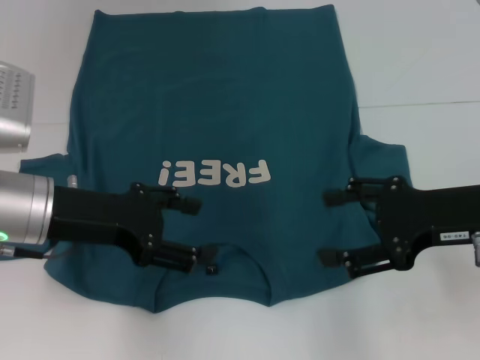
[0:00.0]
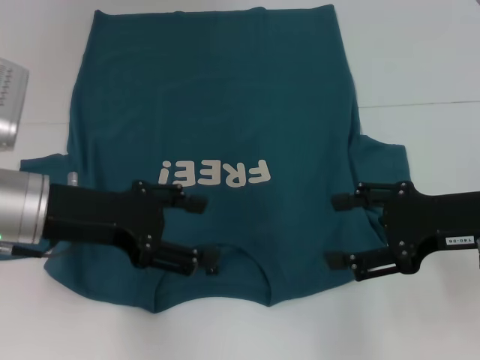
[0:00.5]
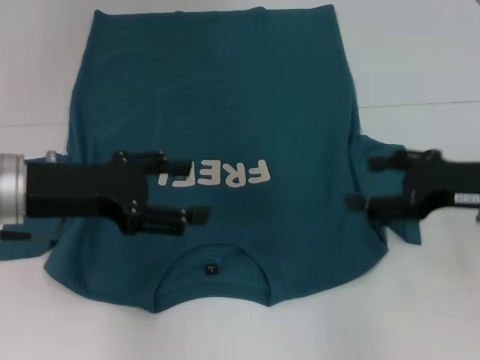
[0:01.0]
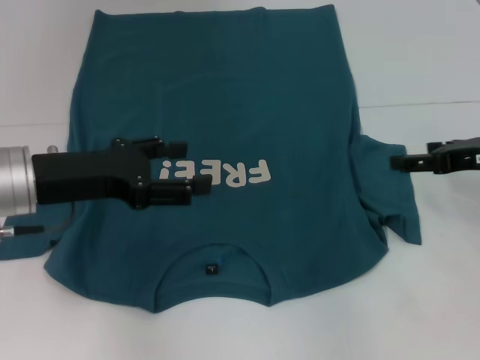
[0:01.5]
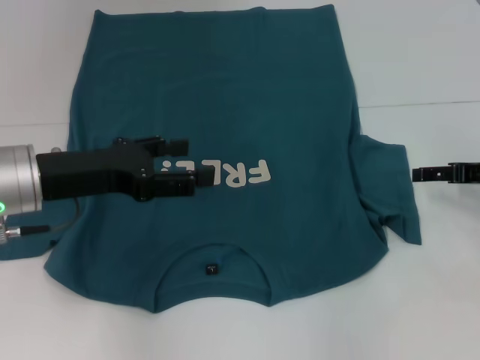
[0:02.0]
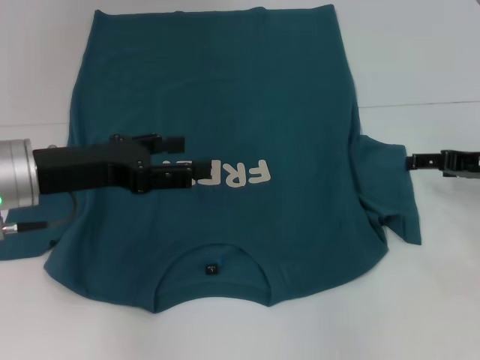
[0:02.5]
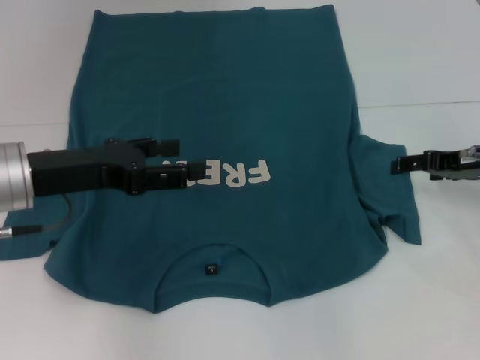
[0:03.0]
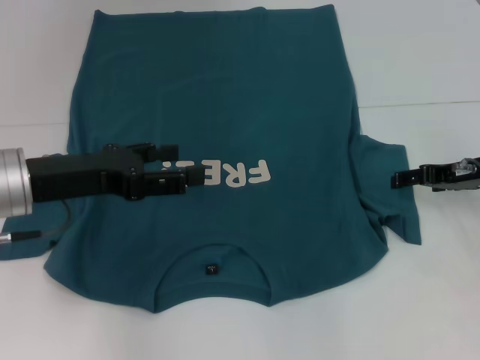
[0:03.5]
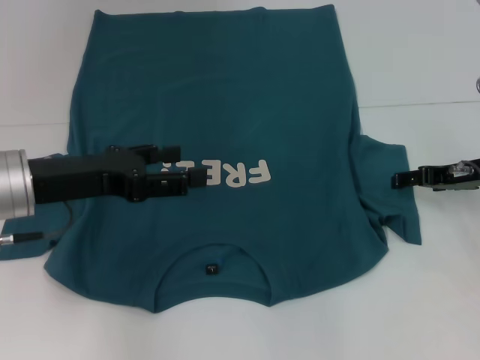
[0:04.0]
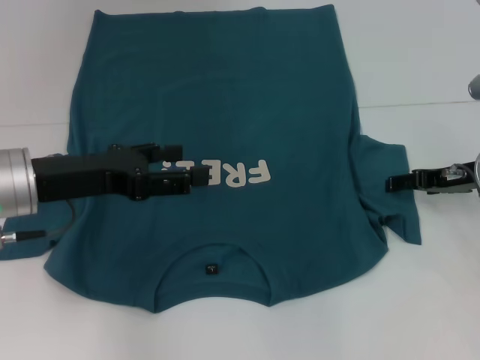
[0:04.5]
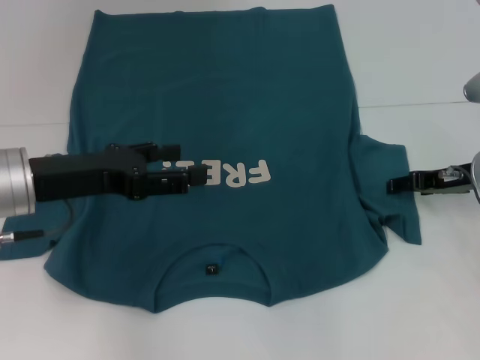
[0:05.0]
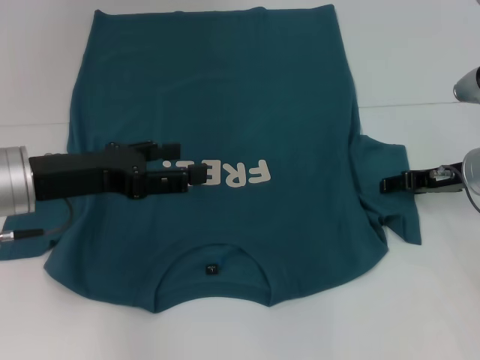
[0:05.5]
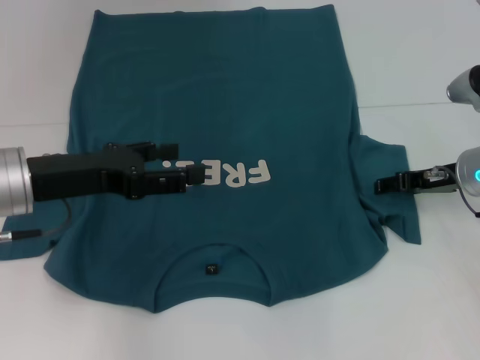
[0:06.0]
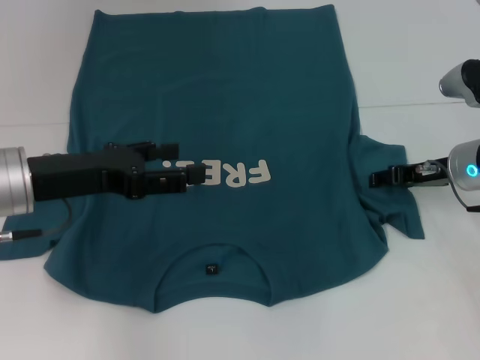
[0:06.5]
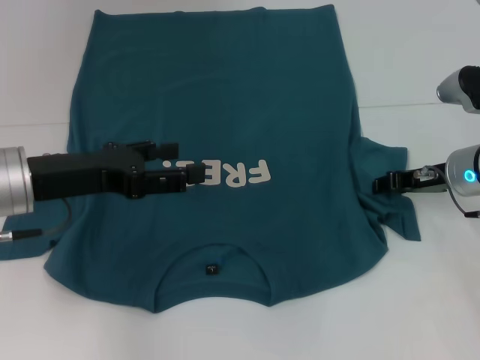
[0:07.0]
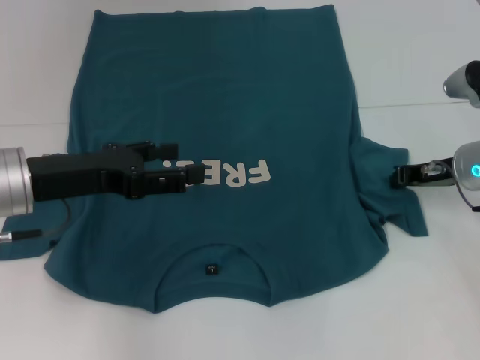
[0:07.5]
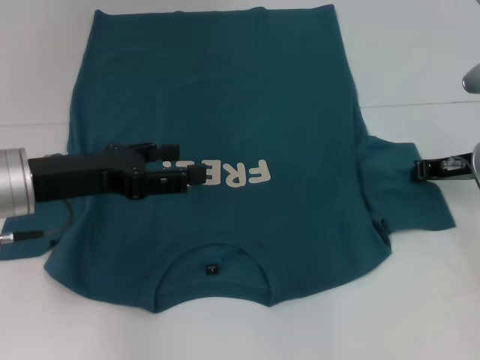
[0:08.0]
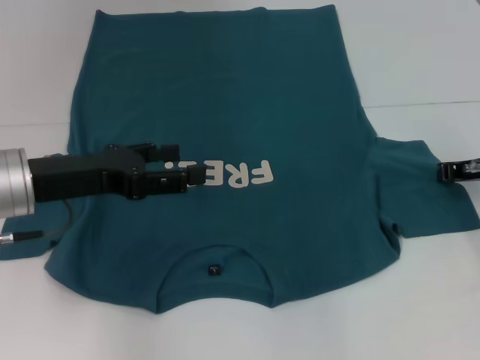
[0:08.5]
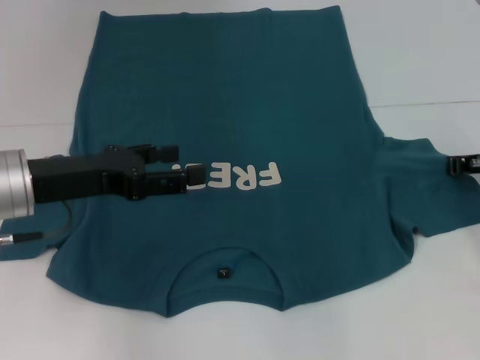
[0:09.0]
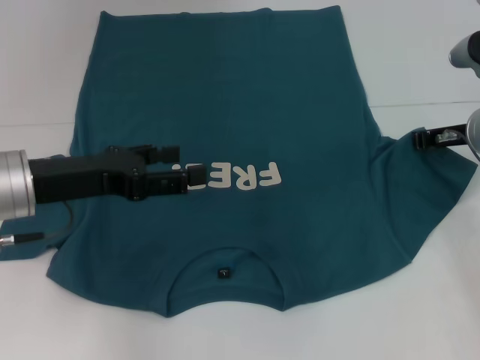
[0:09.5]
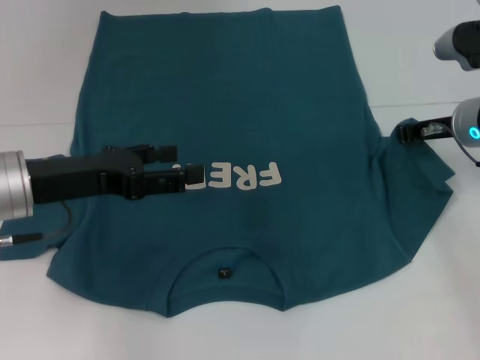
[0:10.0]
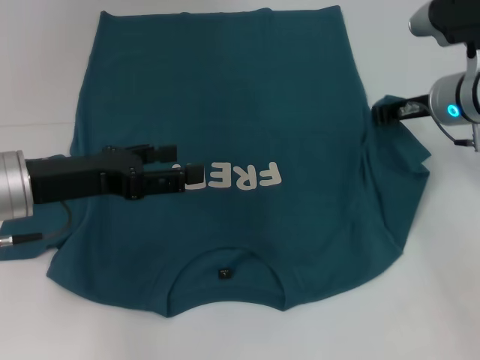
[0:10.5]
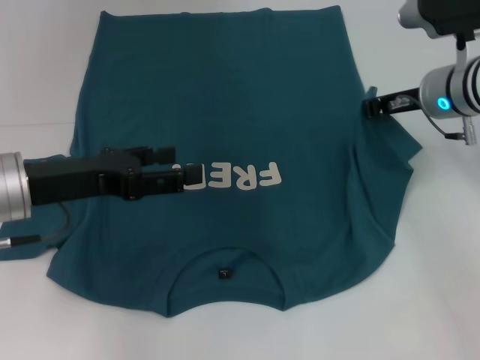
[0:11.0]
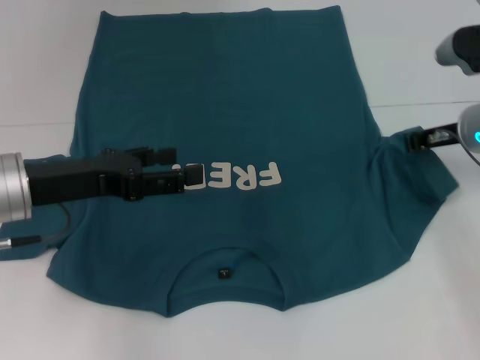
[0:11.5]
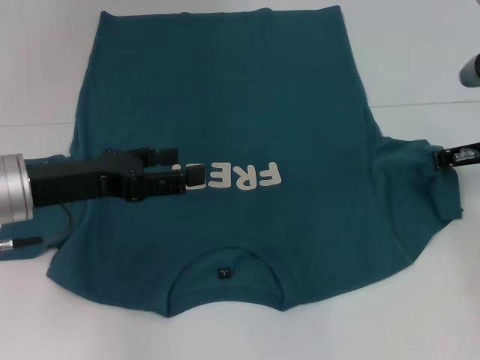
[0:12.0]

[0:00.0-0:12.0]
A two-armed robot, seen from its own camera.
0:00.0 to 0:02.0: The right gripper moves to the right, forward and downward, some 15 cm.
0:02.0 to 0:04.0: The grippers make only small movements.
0:04.0 to 0:06.0: There are only small adjustments of the grippers.
0:06.0 to 0:08.0: The right gripper closes its fingers.
0:08.0 to 0:10.0: The grippers move only a little.
0:10.0 to 0:12.0: The grippers move only a little.

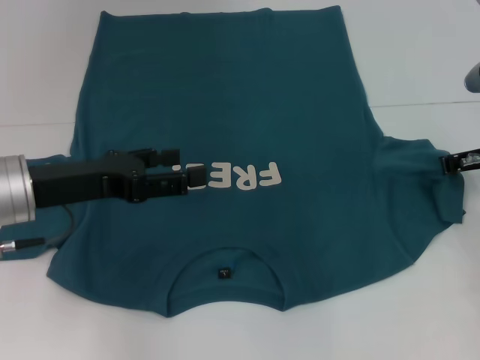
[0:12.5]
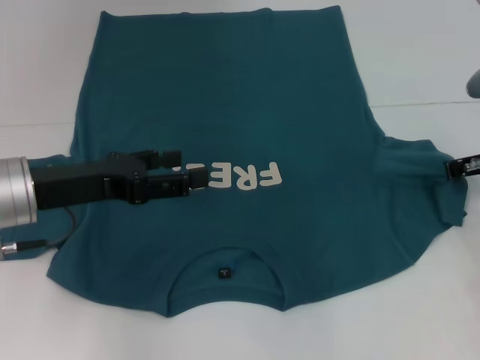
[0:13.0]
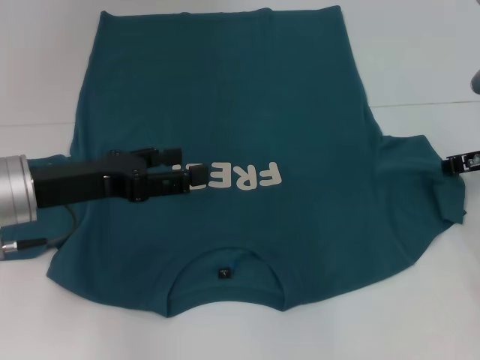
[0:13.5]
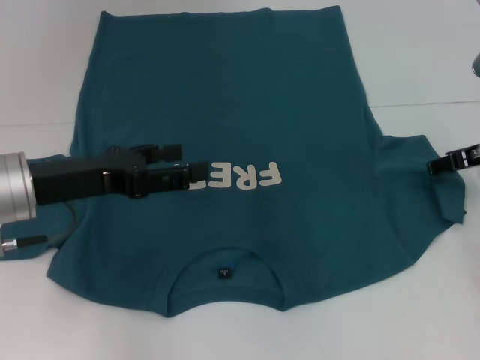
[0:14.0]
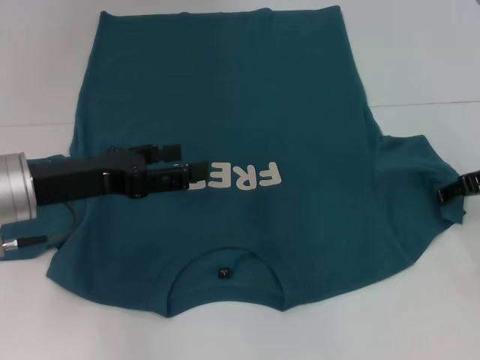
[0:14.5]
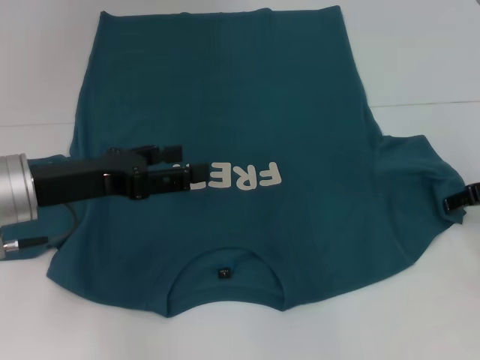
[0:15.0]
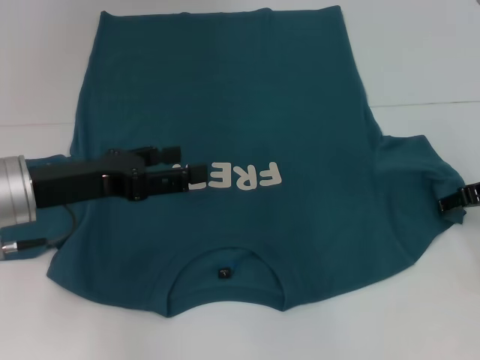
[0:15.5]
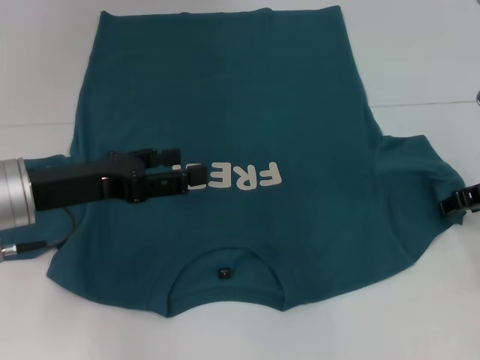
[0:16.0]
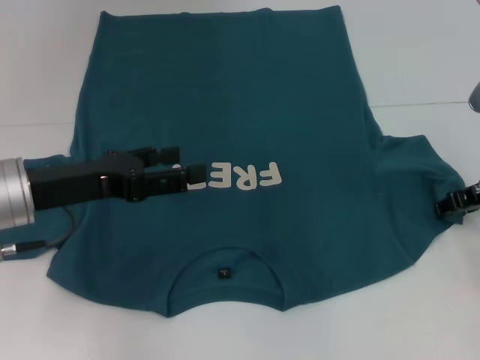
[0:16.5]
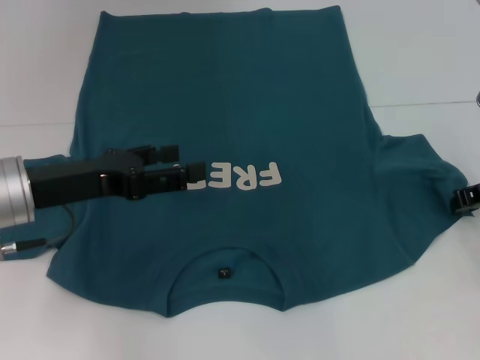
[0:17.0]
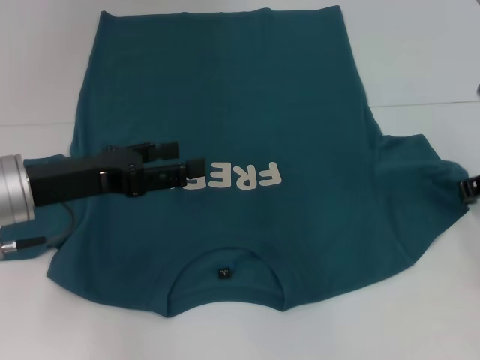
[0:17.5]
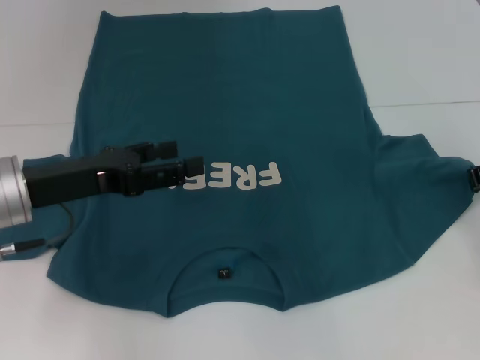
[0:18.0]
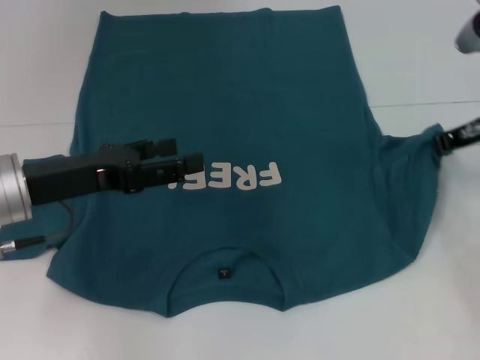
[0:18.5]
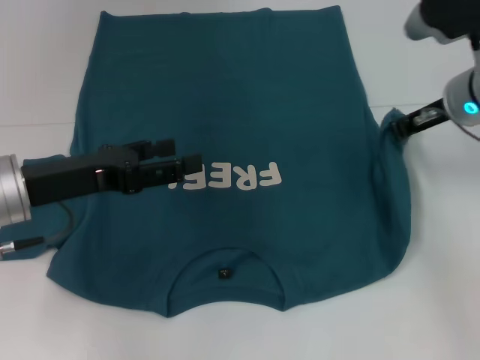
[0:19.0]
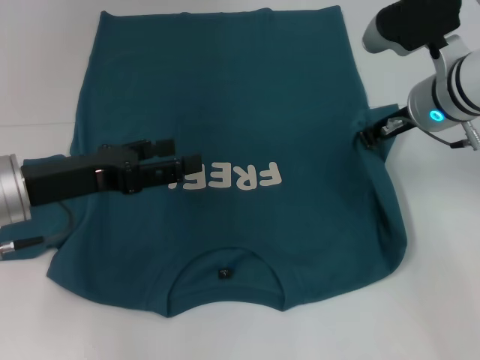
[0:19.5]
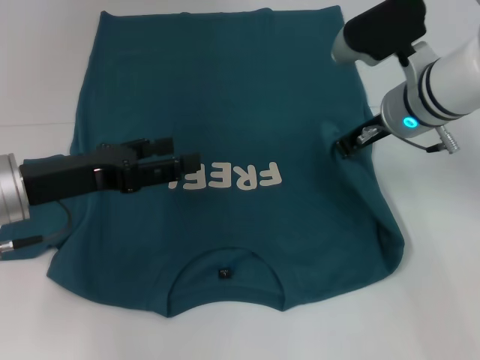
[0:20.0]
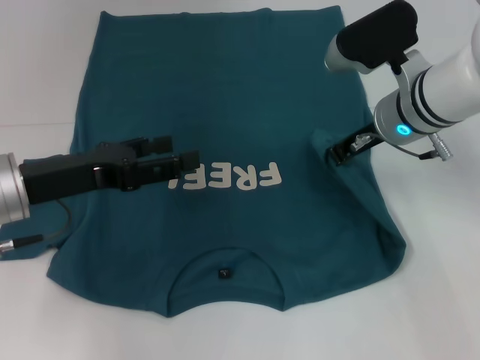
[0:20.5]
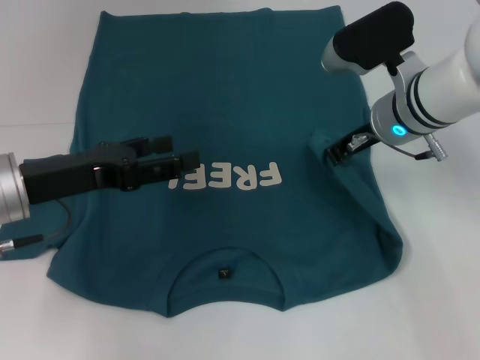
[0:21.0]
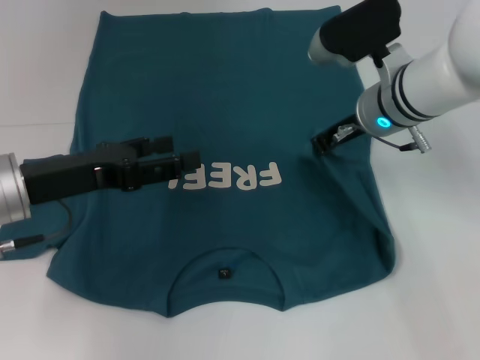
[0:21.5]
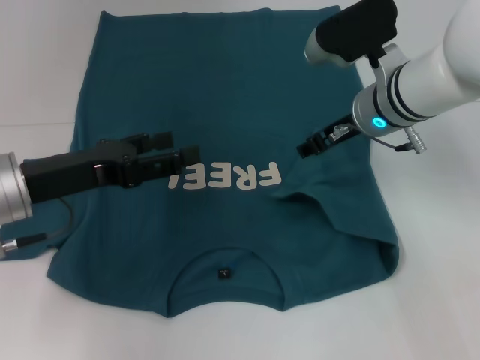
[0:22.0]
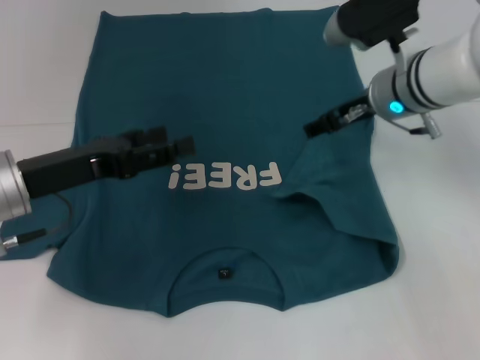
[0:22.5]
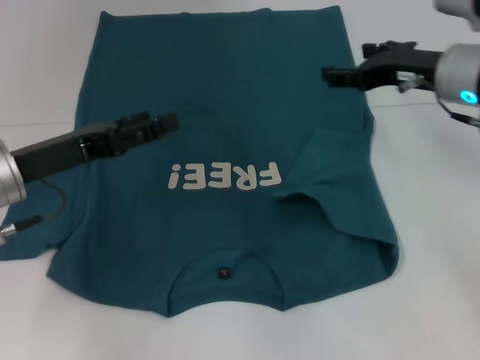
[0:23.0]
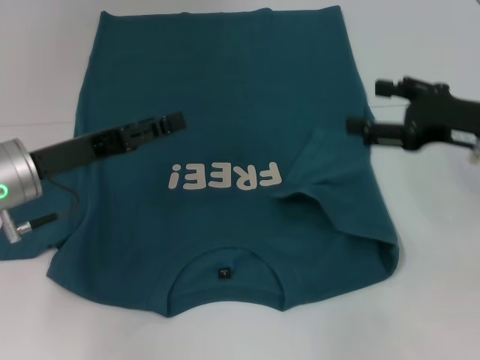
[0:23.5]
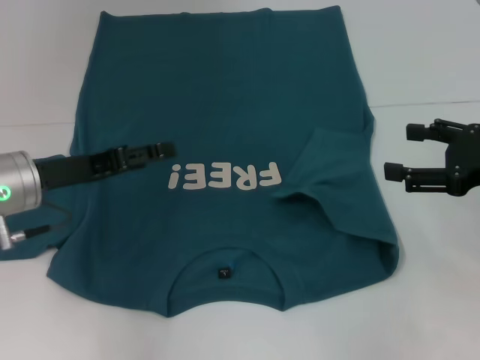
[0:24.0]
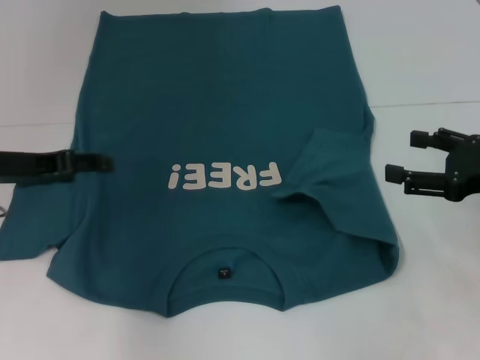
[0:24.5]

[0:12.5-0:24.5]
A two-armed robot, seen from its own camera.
Step, 0:12.5 to 0:21.5: Fold the bottom right sleeve to the right.
0:12.5 to 0:14.5: The right gripper opens.
0:14.5 to 0:16.5: The right gripper closes up.
0:16.5 to 0:18.5: The right gripper moves upward, approximately 5 cm, and closes.
0:18.5 to 0:20.5: The right gripper heads to the left, covering roughly 10 cm.
0:20.5 to 0:22.5: The right gripper opens its fingers.
0:22.5 to 0:24.5: The left gripper shifts by some 5 cm. The right gripper goes about 20 cm to the right and backward.

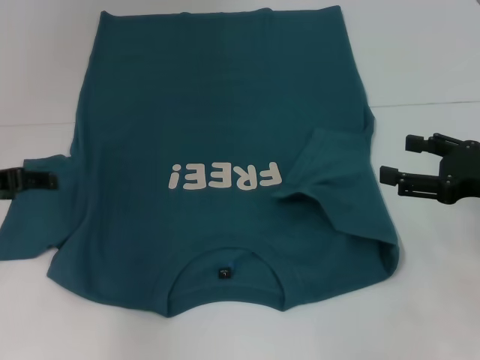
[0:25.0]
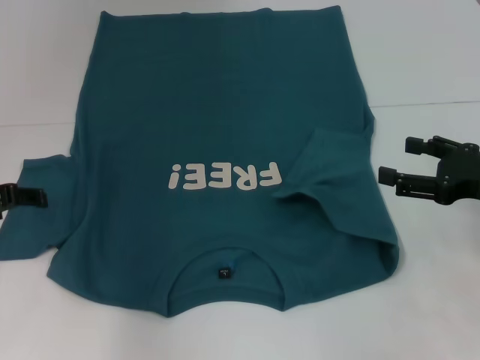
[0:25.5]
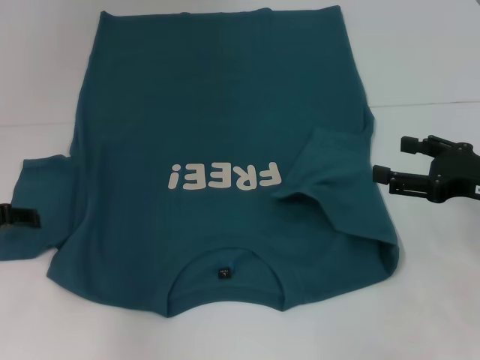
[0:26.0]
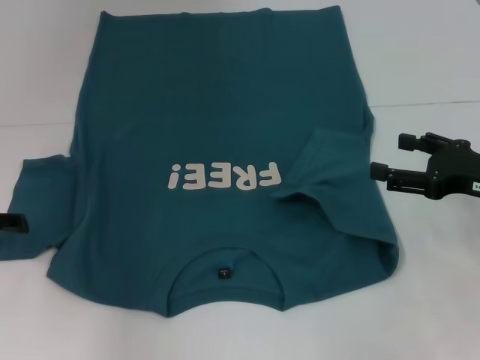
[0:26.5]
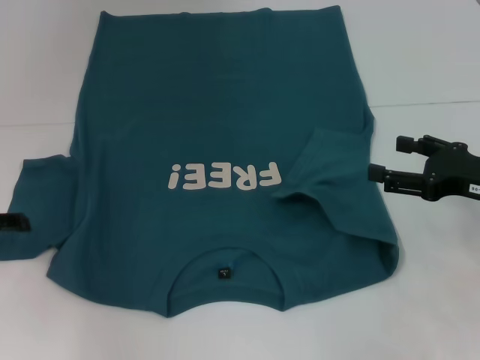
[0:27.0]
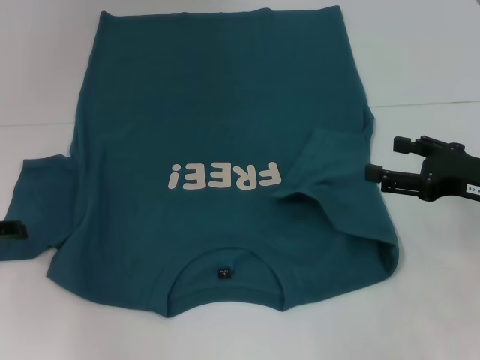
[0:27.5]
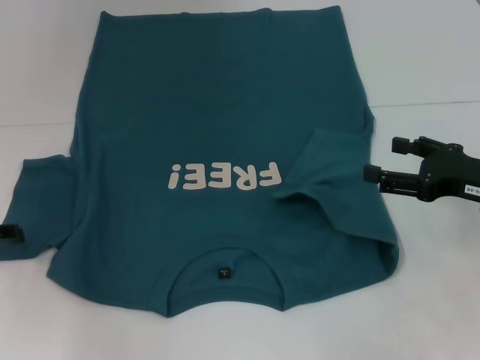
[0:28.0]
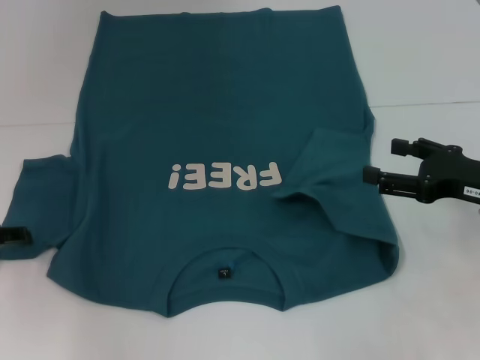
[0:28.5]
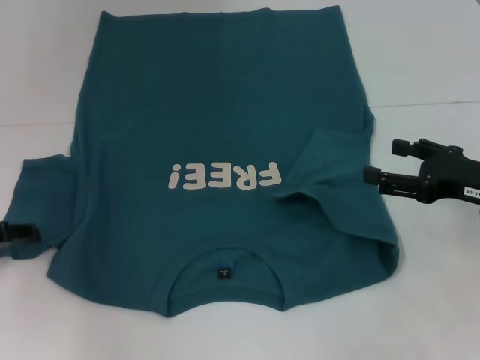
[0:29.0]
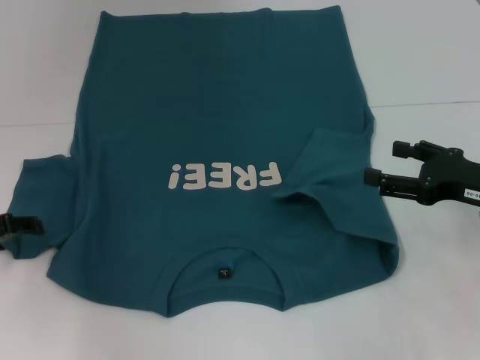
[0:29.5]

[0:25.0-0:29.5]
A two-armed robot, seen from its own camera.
0:25.0 to 0:27.0: The left gripper changes place by about 5 cm.
0:27.0 to 0:29.5: There are only small adjustments of the grippers.
